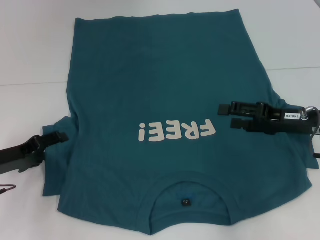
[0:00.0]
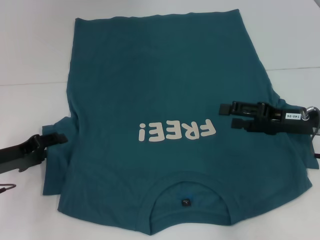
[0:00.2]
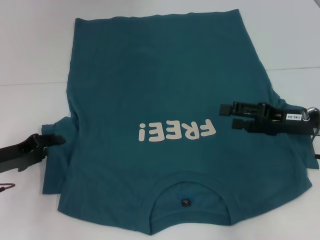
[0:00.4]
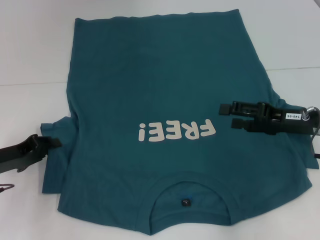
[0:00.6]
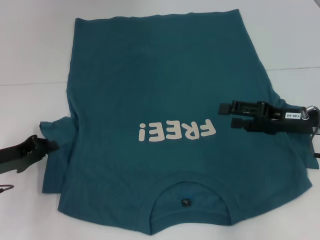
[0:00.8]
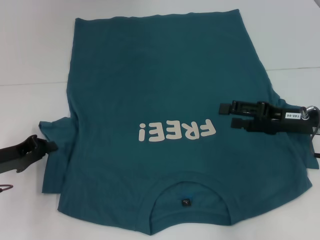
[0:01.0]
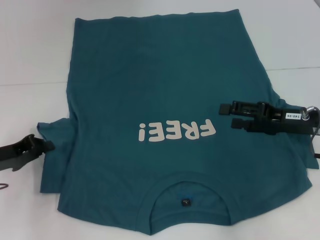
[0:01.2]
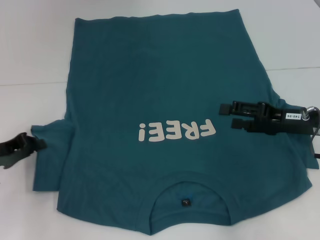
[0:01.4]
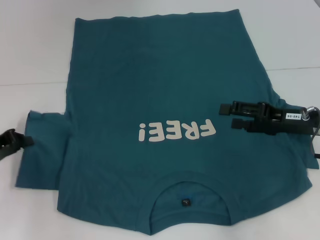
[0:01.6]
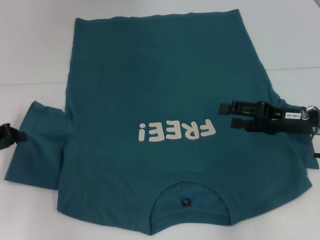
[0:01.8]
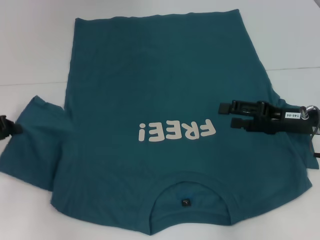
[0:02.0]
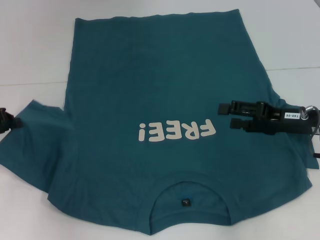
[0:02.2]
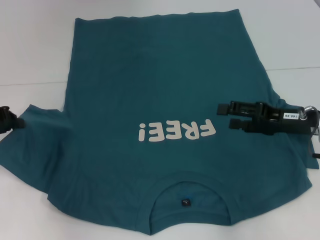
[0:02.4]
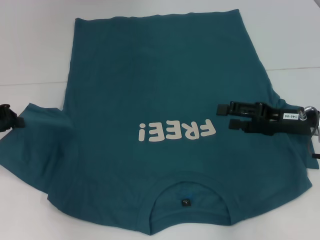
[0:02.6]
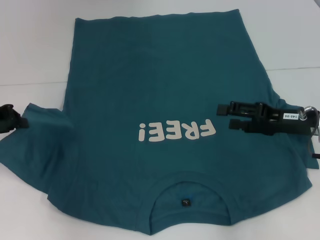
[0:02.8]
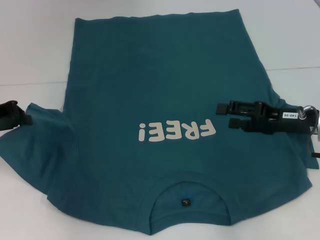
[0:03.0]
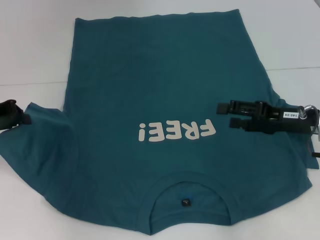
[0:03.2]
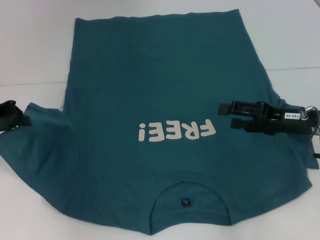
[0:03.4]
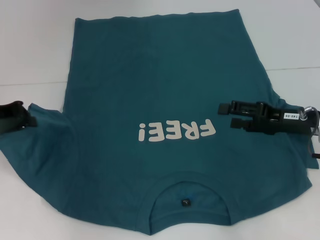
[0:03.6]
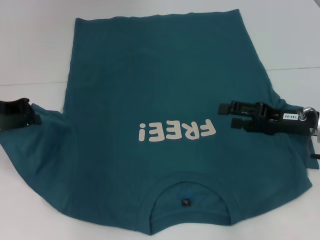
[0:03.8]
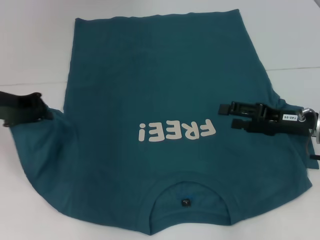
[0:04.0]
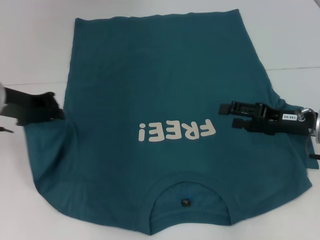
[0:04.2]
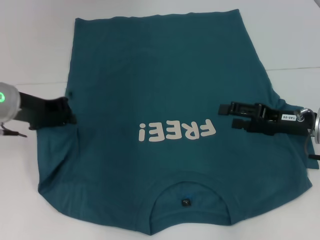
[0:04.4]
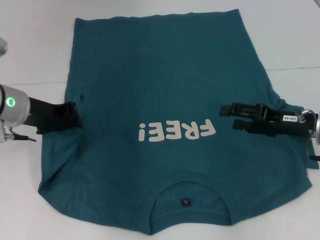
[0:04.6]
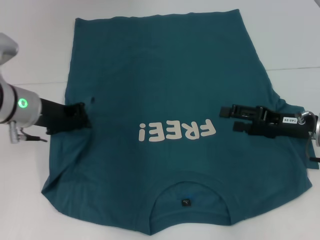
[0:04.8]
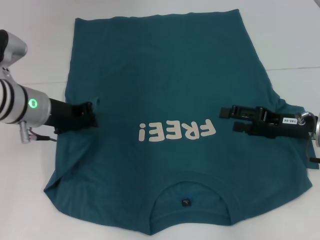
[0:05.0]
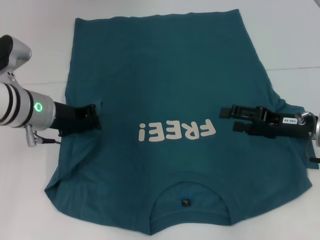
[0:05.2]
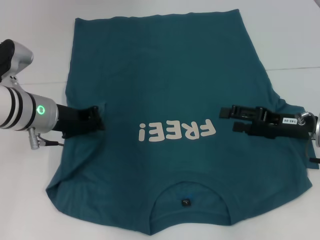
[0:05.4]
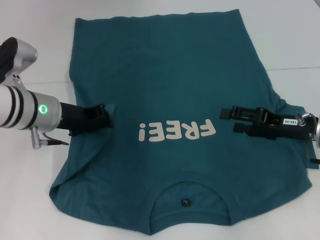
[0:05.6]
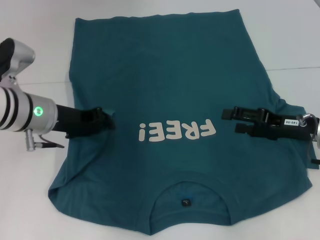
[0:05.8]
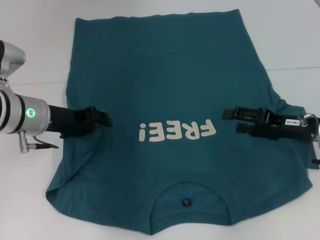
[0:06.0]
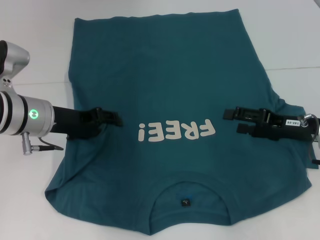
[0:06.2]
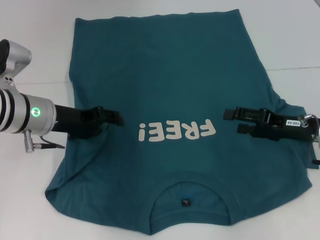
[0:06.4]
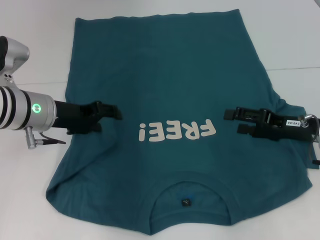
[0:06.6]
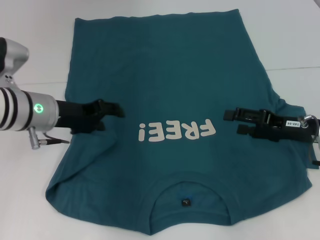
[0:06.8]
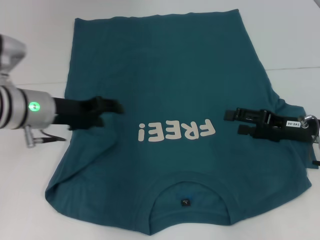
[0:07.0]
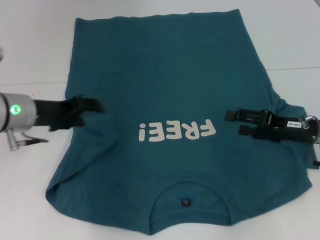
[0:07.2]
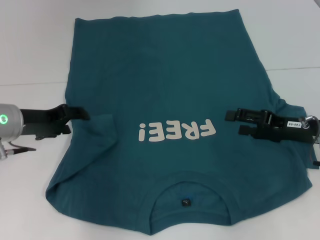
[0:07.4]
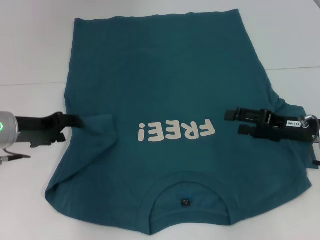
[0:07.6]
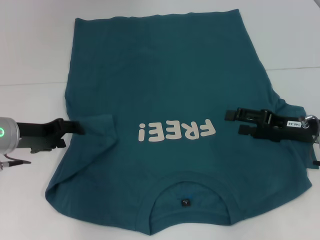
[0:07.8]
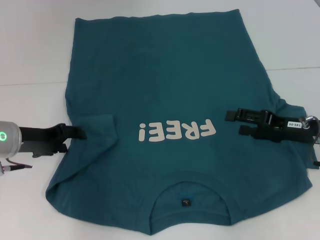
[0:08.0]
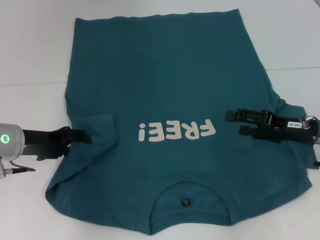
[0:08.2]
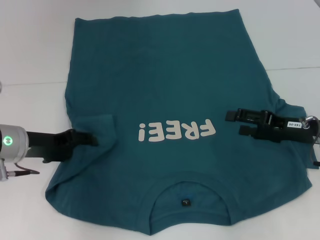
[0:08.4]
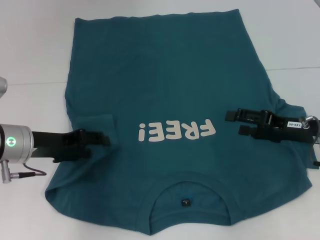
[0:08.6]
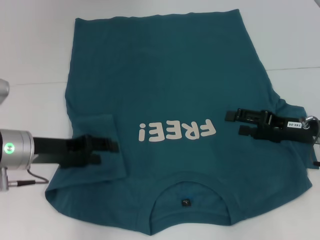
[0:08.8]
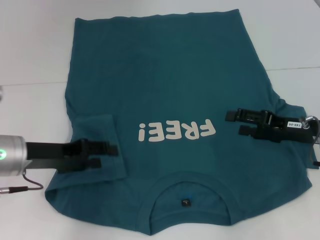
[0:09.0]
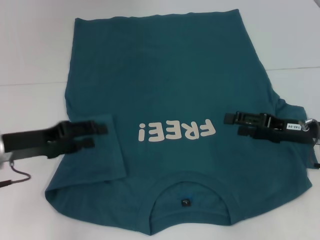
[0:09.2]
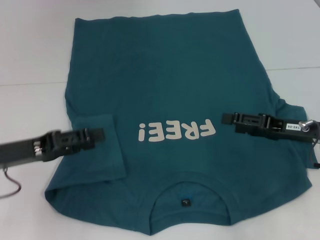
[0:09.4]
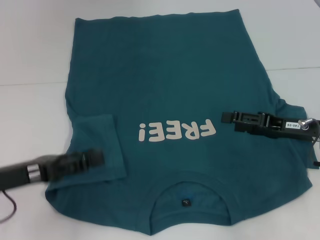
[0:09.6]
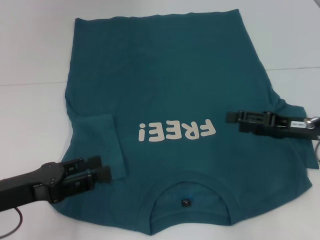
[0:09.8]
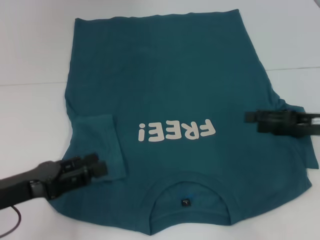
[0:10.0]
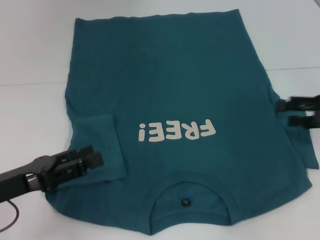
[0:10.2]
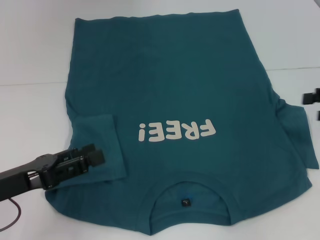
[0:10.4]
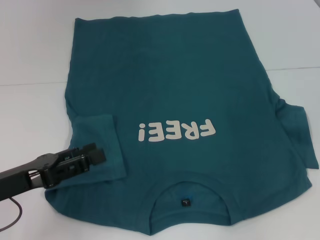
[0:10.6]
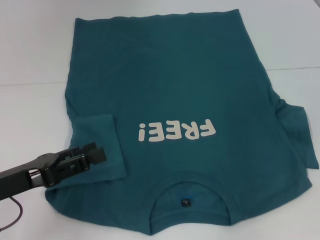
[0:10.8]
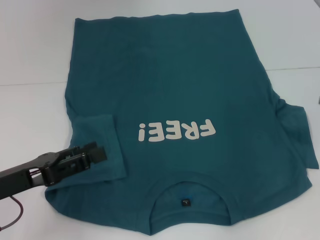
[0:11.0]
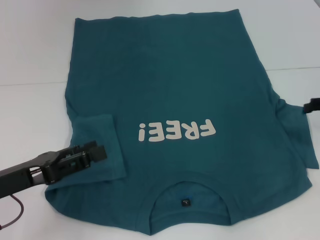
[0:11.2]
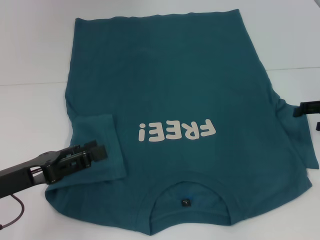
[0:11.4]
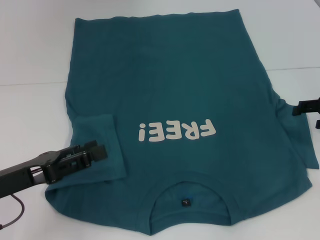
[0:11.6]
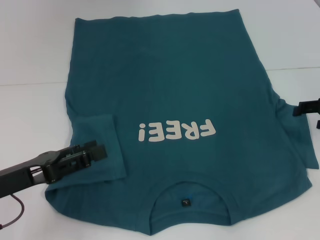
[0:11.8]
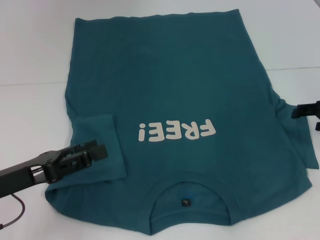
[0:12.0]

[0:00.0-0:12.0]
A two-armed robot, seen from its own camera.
Step, 0:00.0 to 0:09.0: Fold the bottom left sleeve with your left hand.
0:00.0 to 0:01.6: The left gripper closes its fingers.
0:01.6 to 0:03.0: The left gripper travels upward by roughly 10 cm.
0:03.0 to 0:04.4: The left gripper shifts roughly 10 cm to the right.
0:04.4 to 0:06.0: The grippers stay close to where they were, moving slightly.
0:06.0 to 0:07.6: The left gripper moves approximately 5 cm, and opens.
0:09.0 to 0:10.4: The left gripper travels backward by approximately 10 cm; the right gripper travels to the right and upward by approximately 15 cm.
0:10.4 to 0:12.0: The right gripper travels downward by approximately 5 cm.

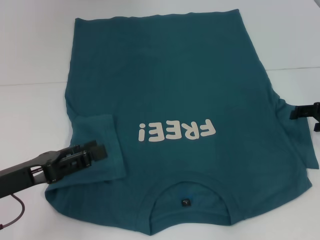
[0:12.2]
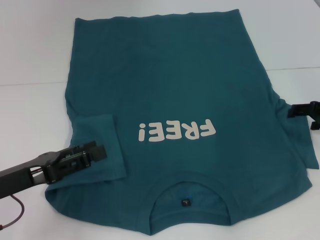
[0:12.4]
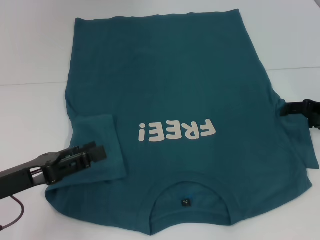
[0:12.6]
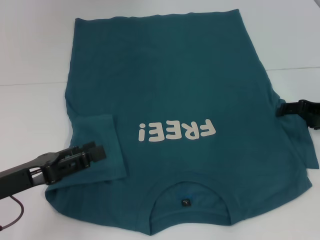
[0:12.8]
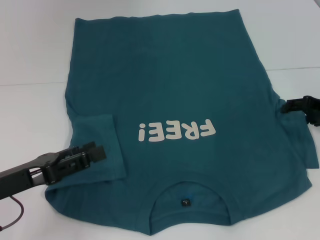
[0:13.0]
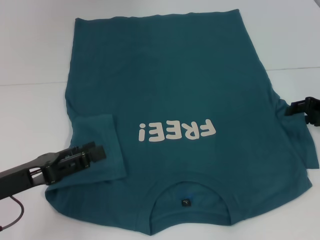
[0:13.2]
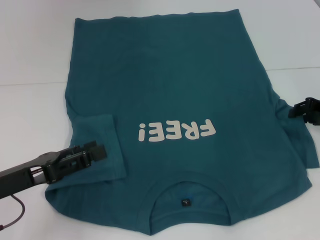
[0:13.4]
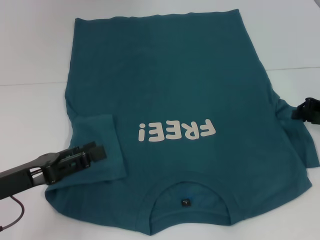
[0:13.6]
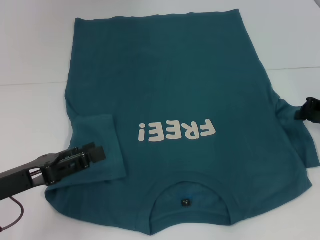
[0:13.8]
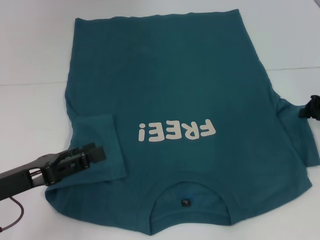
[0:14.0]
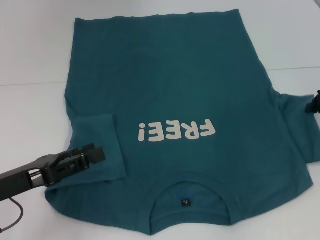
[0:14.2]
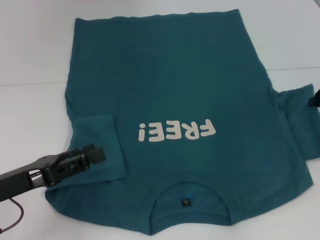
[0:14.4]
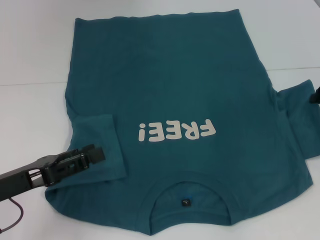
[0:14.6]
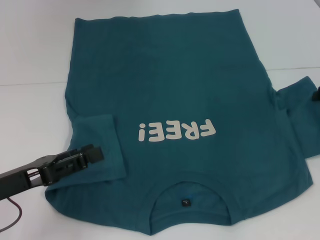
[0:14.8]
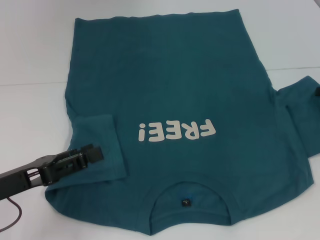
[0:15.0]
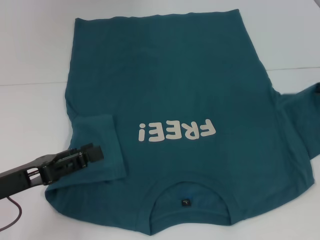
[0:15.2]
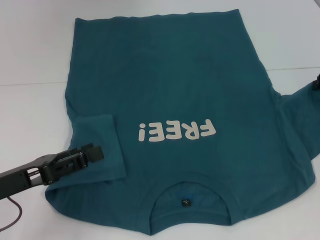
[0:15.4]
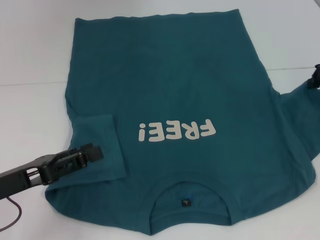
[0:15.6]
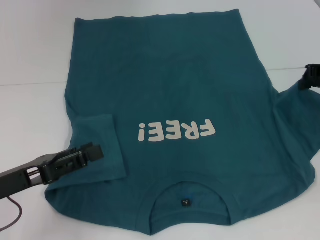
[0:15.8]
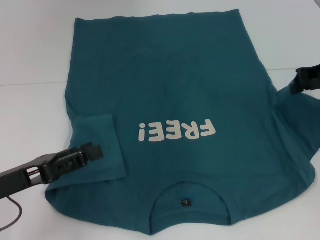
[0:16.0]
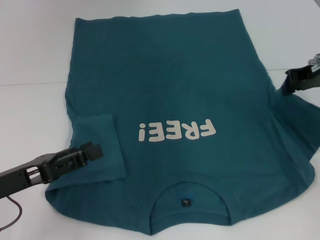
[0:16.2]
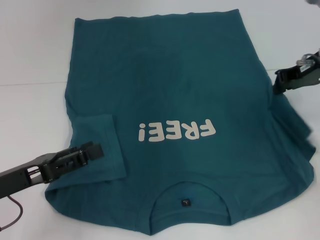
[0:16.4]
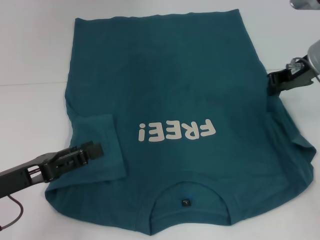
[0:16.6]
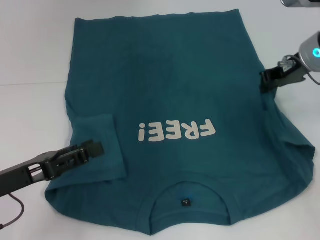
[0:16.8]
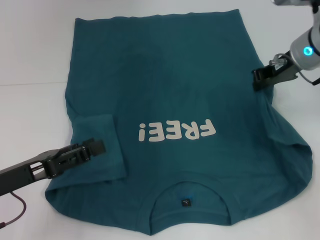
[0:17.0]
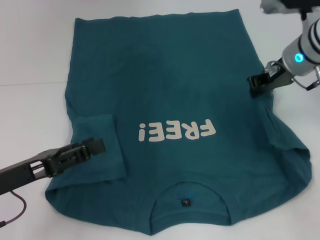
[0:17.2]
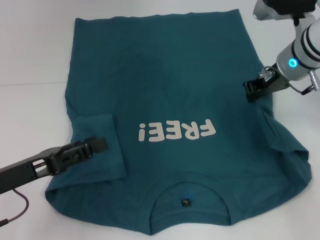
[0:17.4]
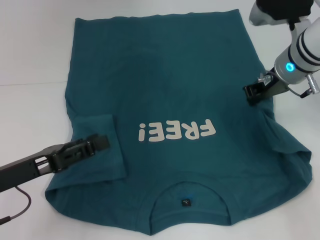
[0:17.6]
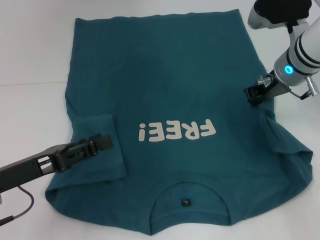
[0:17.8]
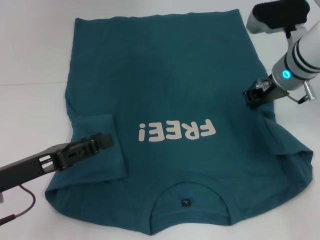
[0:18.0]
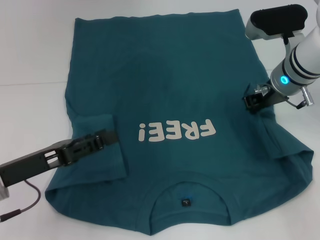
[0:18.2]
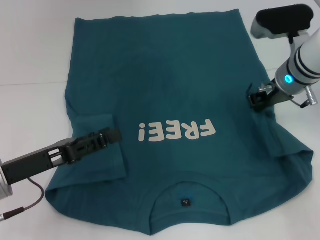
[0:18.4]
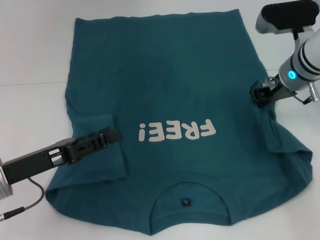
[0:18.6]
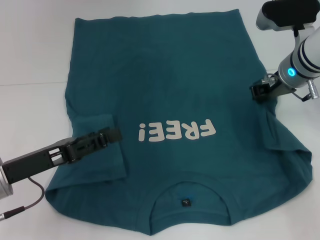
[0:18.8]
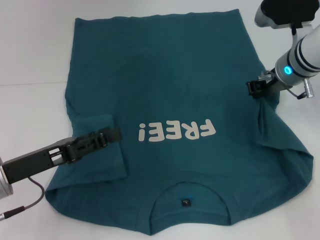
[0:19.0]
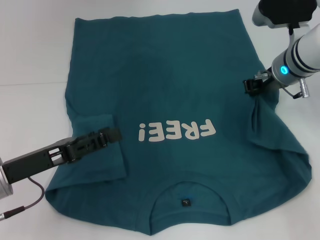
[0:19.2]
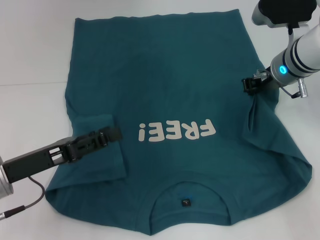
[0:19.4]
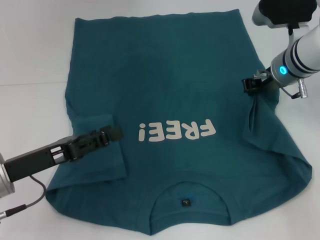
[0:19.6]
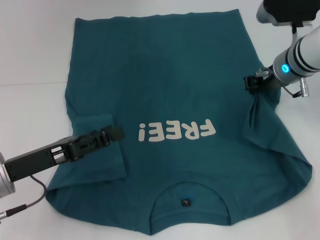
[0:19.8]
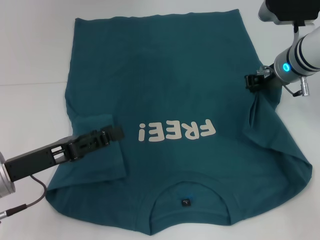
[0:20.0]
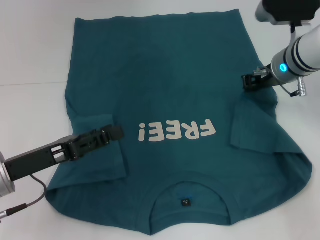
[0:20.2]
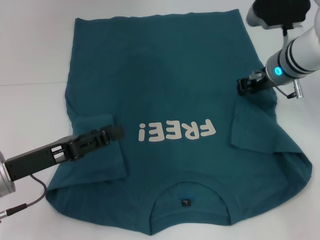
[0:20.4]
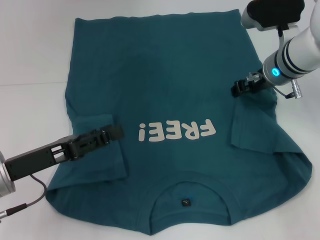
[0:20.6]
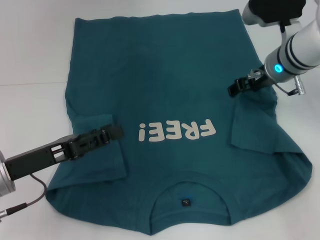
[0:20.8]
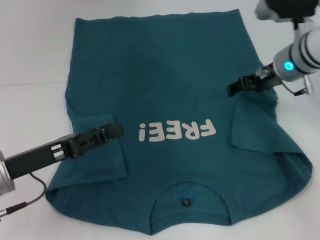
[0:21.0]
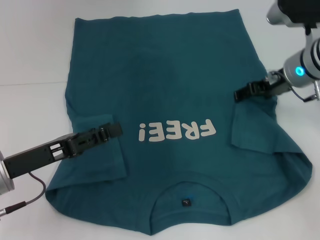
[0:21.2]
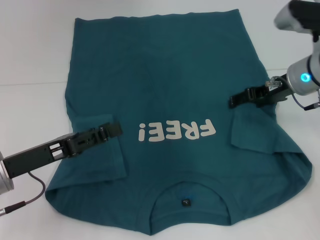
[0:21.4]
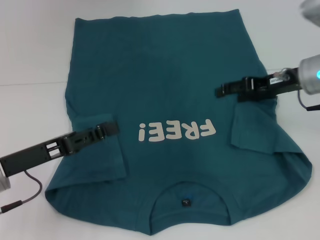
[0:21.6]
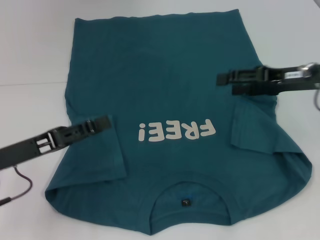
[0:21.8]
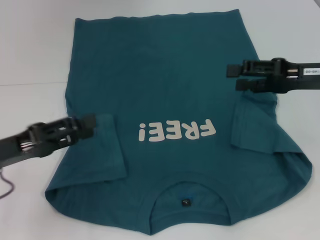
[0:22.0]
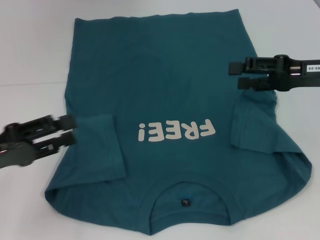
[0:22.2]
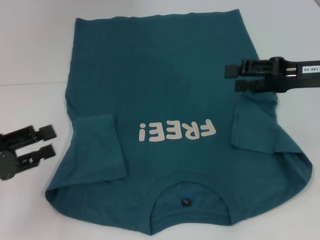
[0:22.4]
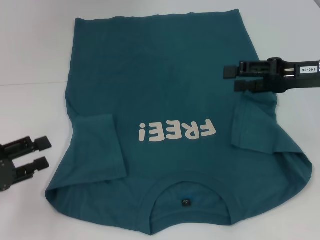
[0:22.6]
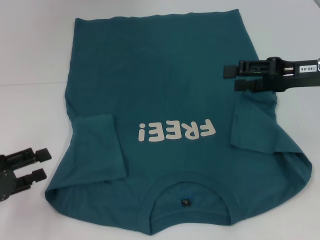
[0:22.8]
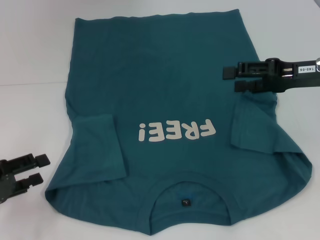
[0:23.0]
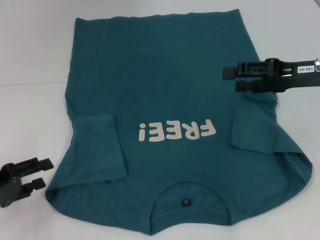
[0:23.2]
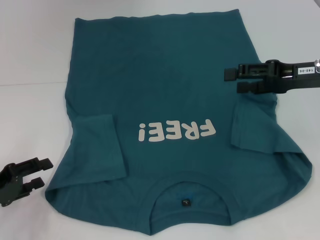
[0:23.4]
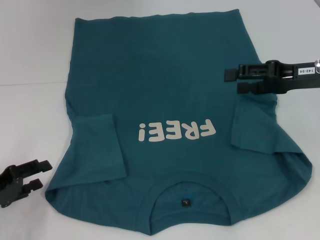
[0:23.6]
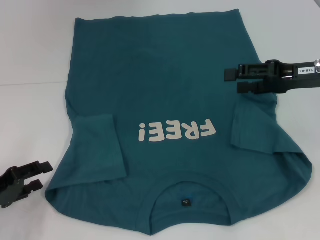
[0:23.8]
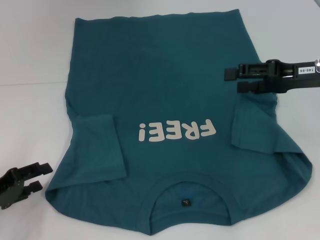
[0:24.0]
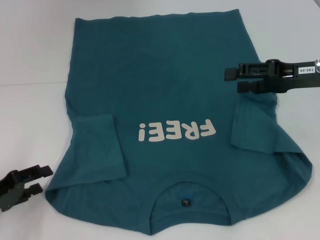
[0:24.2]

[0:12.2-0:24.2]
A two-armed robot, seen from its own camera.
Step, 0:12.2 to 0:20.6: Fold the bottom right sleeve to the right.
0:12.2 to 0:13.8: The right gripper closes.
0:13.8 to 0:15.2: The right gripper shifts approximately 5 cm upward.
0:15.2 to 0:16.6: The right gripper is displaced to the left by about 10 cm.
0:16.6 to 0:18.2: The right gripper is displaced to the left by about 5 cm.
0:18.2 to 0:19.8: There are only small adjustments of the grippers.
0:19.8 to 0:21.2: The right gripper opens.
0:21.2 to 0:22.6: The left gripper goes roughly 10 cm to the left. The right gripper goes about 10 cm backward.
0:22.6 to 0:24.2: The left gripper heads downward, covering roughly 5 cm.
